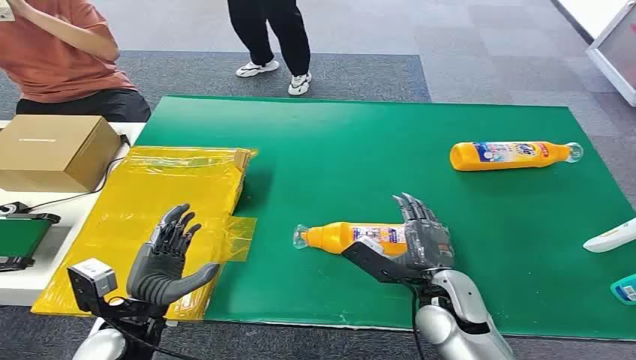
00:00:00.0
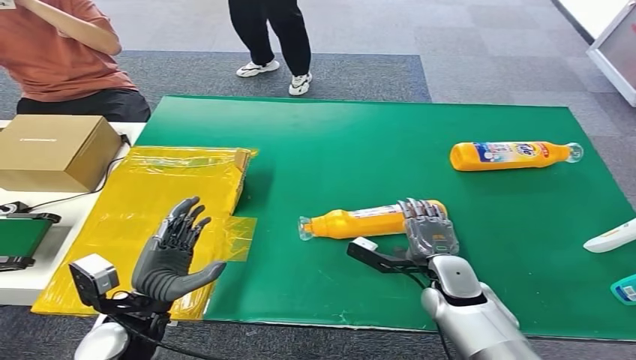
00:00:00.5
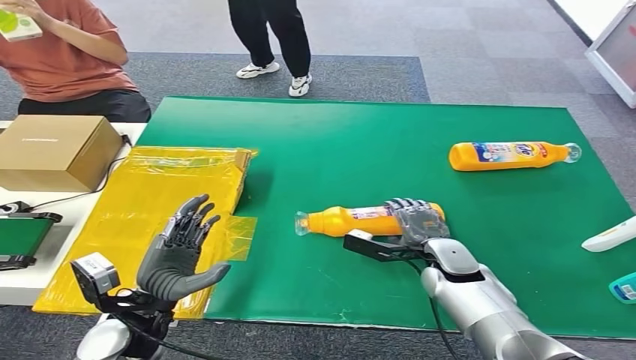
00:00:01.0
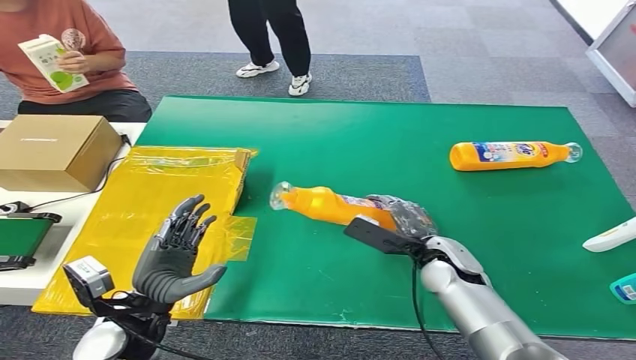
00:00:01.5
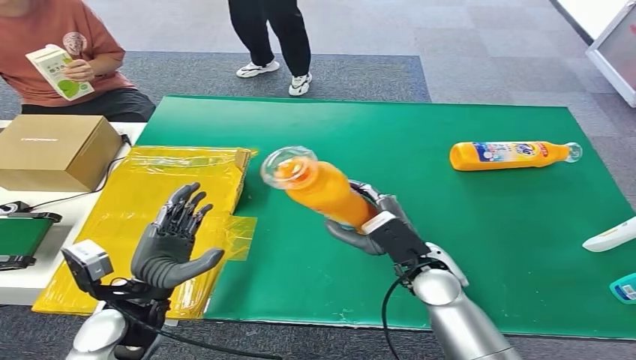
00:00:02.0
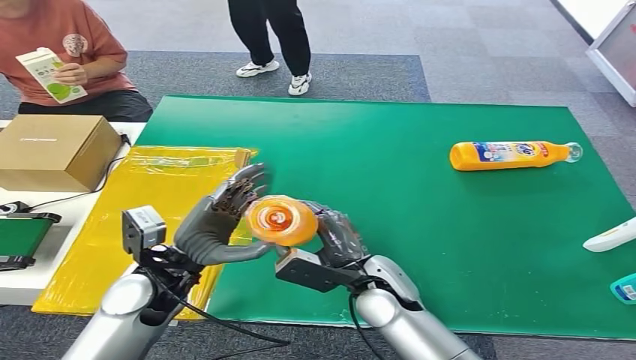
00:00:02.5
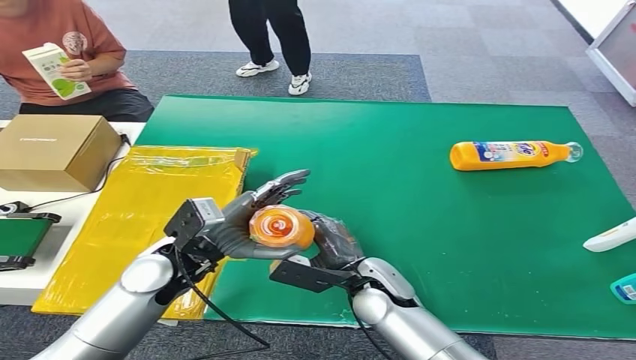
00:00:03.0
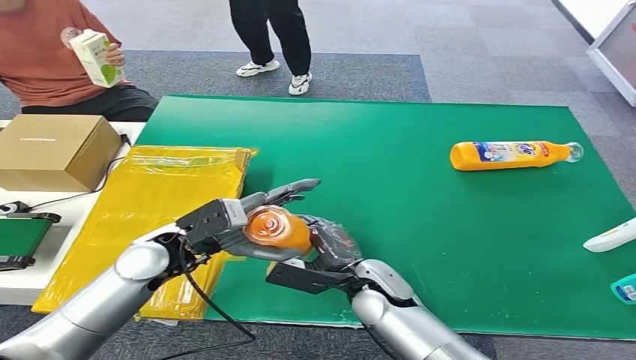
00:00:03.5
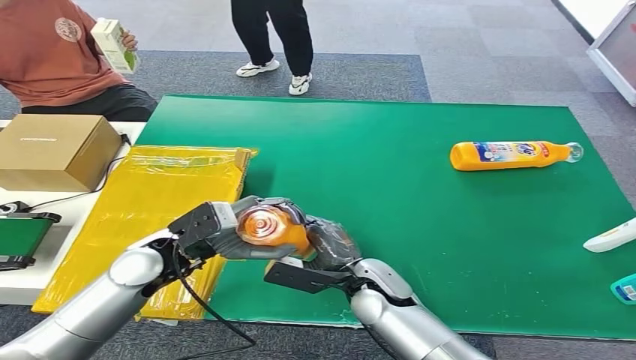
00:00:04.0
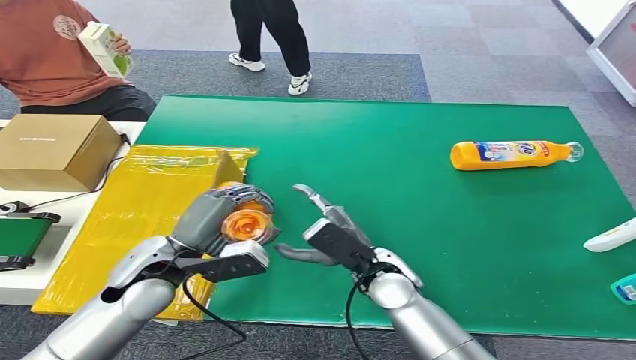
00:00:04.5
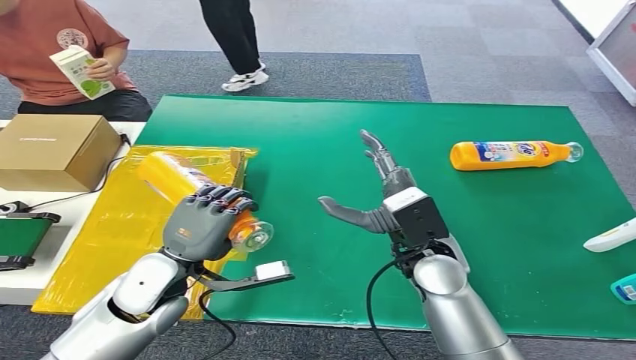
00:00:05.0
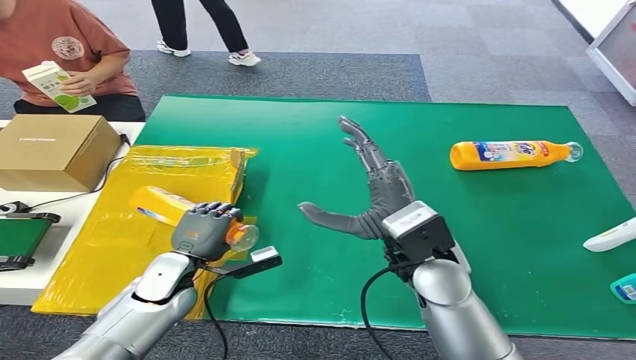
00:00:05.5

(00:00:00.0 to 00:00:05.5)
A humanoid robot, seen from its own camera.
Step, 00:00:00.0 - 00:00:01.5: Pick up the bottle from the table.
Step, 00:00:02.0 - 00:00:05.5: Turn the bottle to the front side.
